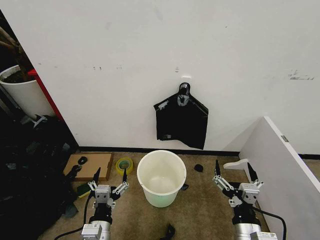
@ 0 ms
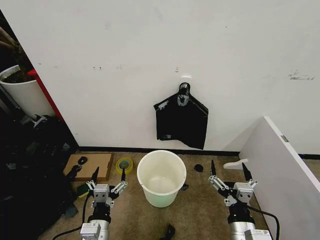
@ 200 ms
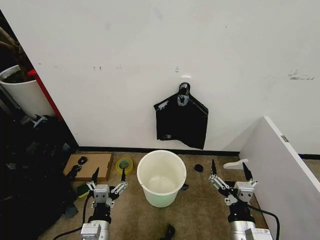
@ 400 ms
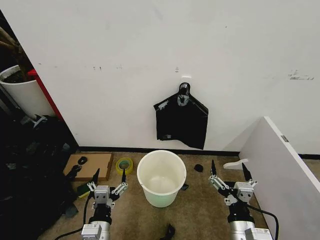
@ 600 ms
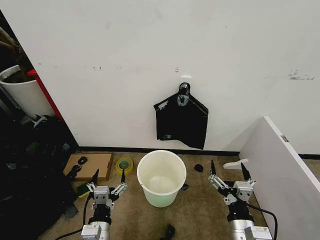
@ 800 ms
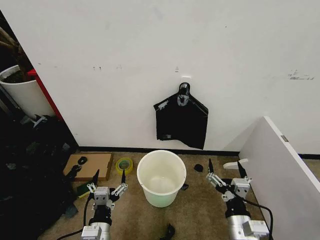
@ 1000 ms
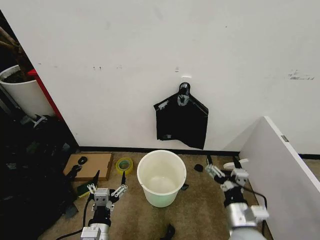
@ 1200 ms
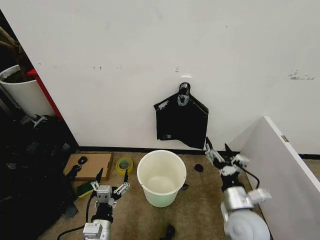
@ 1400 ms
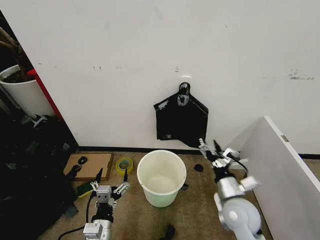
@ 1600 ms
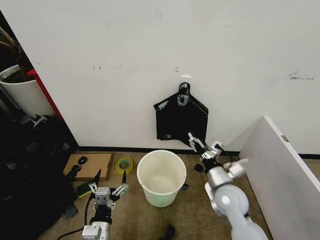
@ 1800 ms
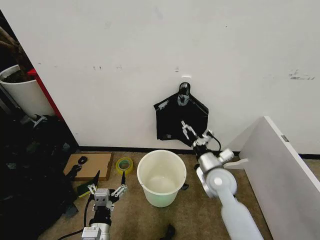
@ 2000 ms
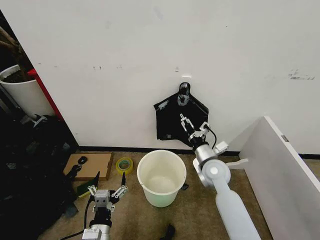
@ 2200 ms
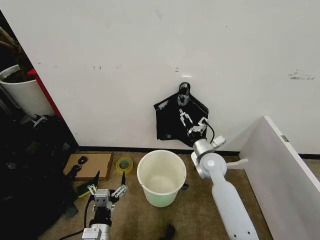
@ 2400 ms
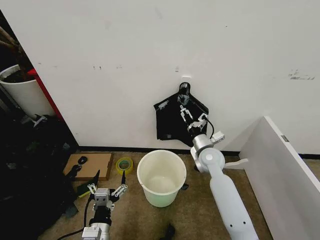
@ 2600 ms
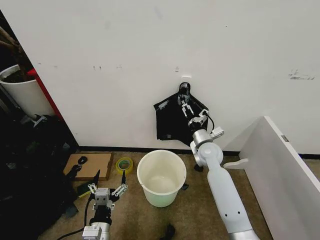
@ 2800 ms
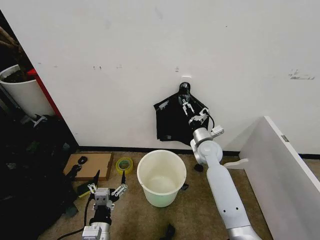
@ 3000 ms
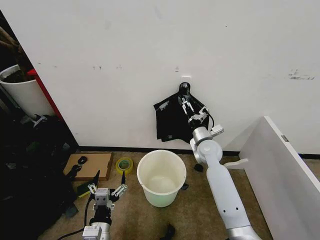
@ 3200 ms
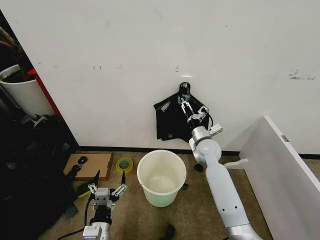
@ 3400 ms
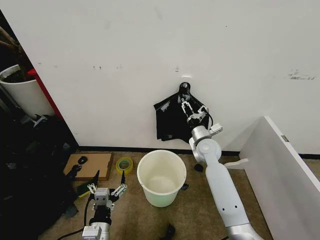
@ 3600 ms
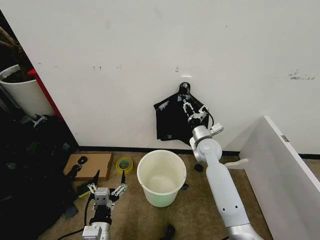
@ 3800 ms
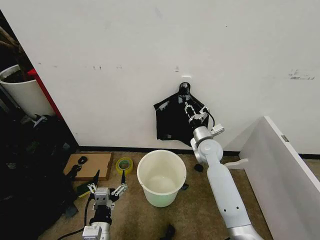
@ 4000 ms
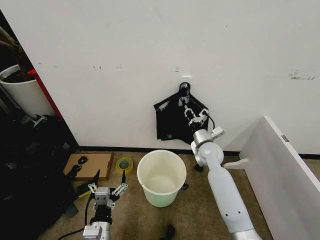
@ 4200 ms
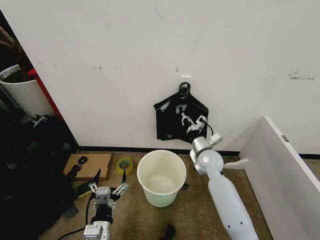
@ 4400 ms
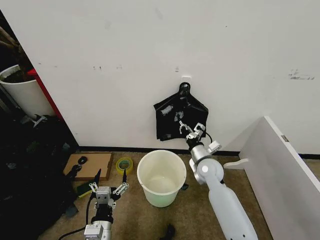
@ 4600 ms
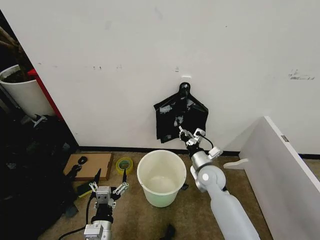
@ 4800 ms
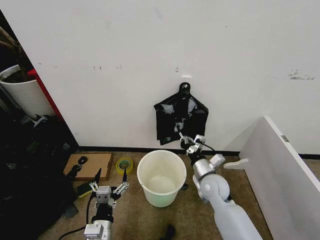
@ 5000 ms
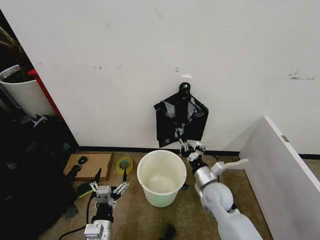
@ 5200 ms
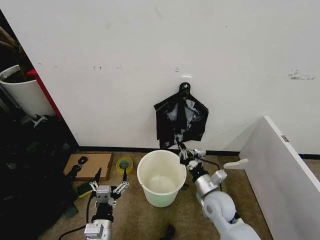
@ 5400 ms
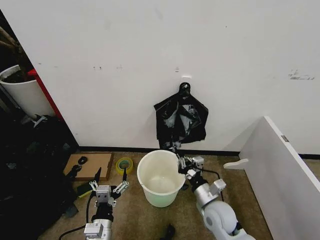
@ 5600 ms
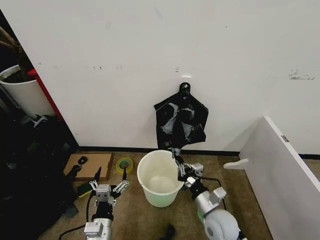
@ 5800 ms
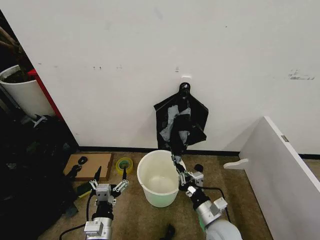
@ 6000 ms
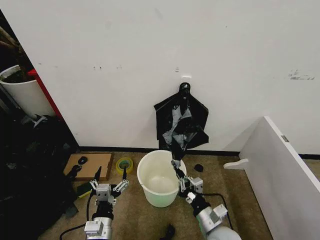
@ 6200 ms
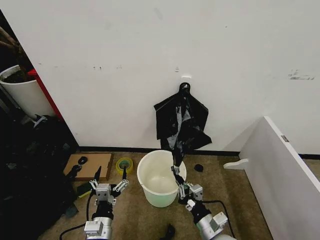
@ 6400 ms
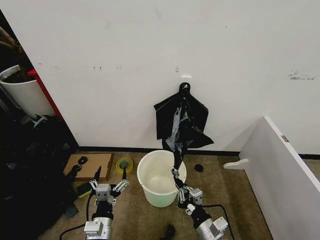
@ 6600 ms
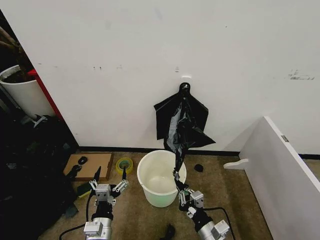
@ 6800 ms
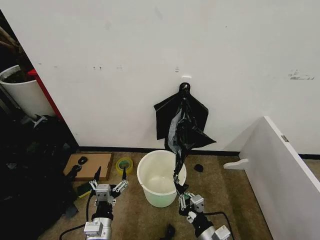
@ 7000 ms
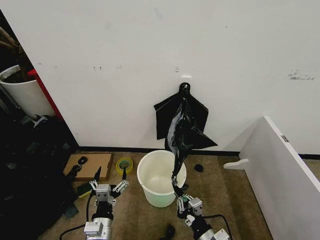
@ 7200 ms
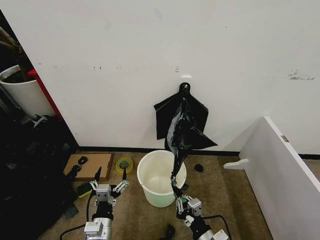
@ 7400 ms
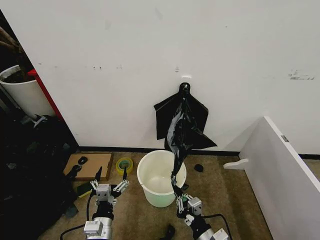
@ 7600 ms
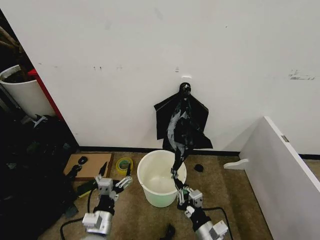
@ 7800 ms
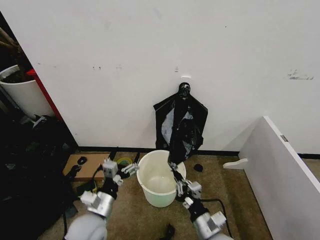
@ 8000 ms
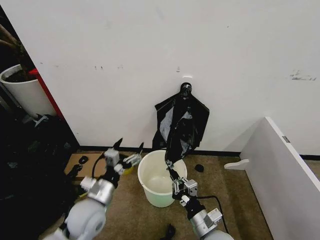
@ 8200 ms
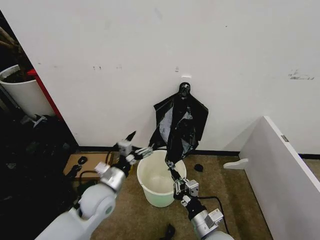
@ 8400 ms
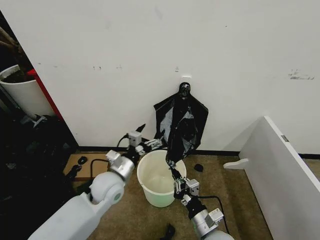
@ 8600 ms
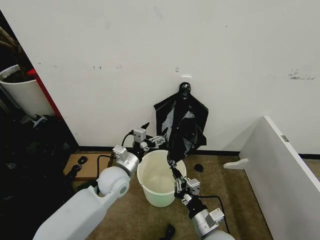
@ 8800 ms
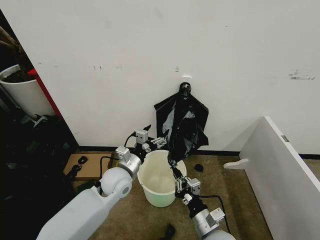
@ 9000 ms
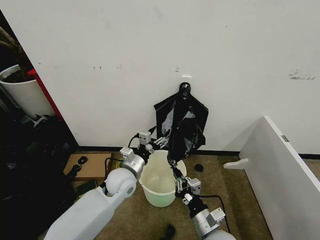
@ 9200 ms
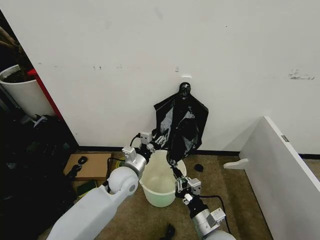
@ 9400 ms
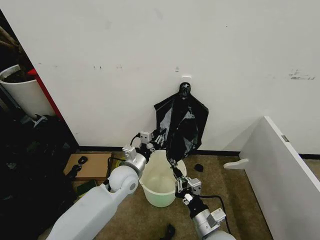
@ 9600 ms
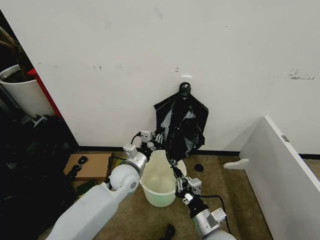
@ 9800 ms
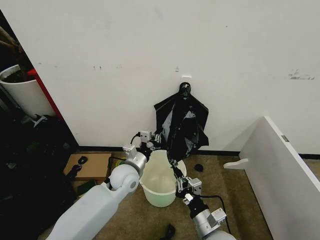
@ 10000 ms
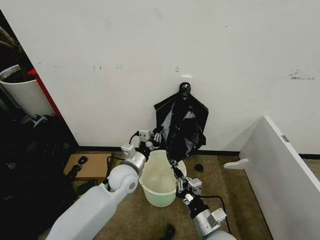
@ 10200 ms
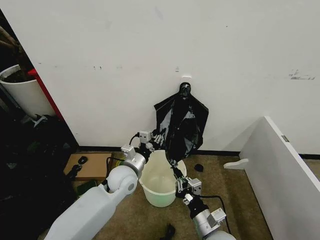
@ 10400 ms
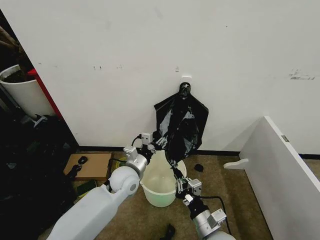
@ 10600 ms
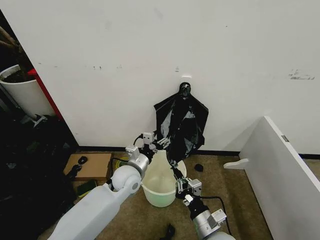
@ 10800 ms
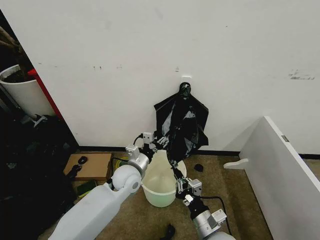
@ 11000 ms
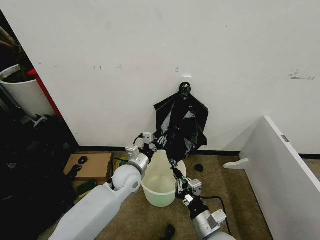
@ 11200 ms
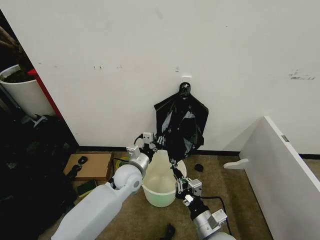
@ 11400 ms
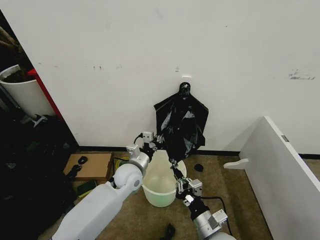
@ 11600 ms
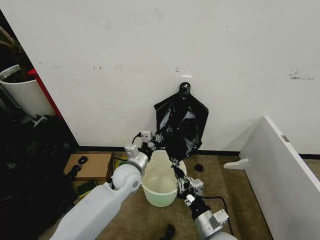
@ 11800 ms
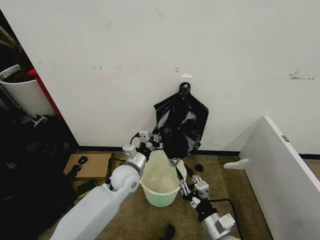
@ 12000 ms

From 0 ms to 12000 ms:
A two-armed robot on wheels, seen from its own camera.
Task of the whole recording: Place the garbage bag over the trash bin.
From 1600 ms to 3000 ms: The right gripper moves forward, some 20 cm.
From 3000 ms to 4400 ms: The right gripper closes.
From 4400 ms to 6000 ms: The right gripper goes roughly 25 cm backward.
From 6000 ms to 7600 ms: The right gripper travels backward by roughly 10 cm.
From 7600 ms to 9000 ms: The right gripper changes place by some 5 cm; the left gripper goes roughly 20 cm forward and upward.
From 9000 ms to 10400 ms: The left gripper closes up.
From 10400 ms to 12000 ms: The left gripper closes.

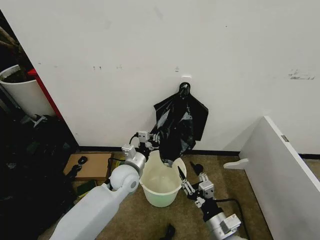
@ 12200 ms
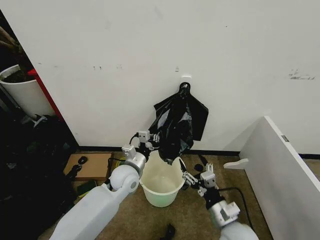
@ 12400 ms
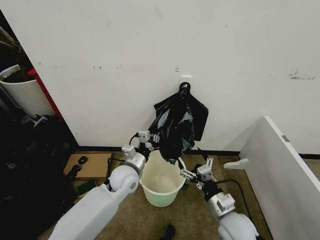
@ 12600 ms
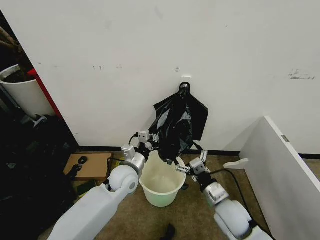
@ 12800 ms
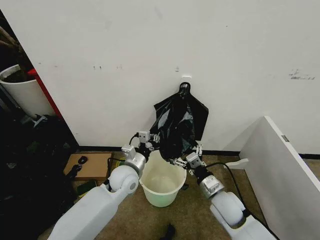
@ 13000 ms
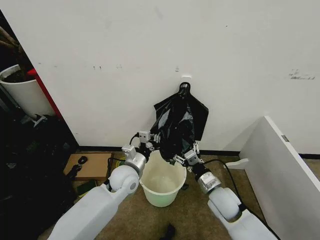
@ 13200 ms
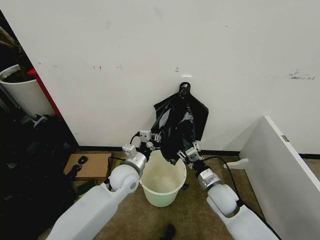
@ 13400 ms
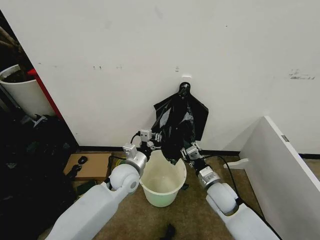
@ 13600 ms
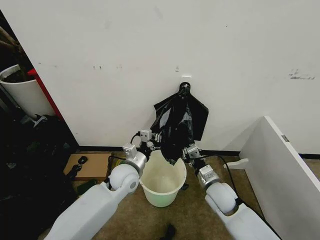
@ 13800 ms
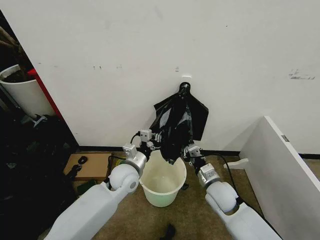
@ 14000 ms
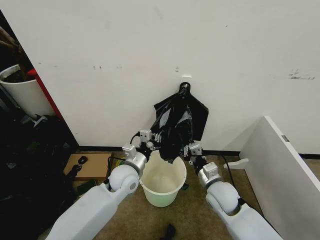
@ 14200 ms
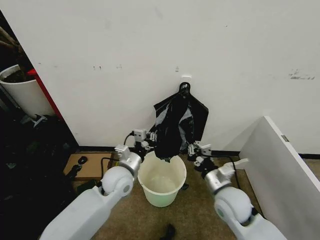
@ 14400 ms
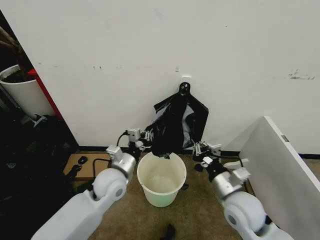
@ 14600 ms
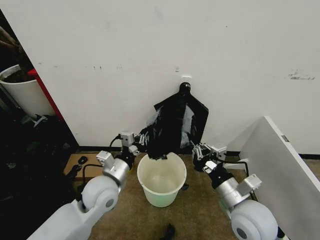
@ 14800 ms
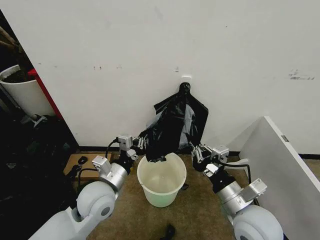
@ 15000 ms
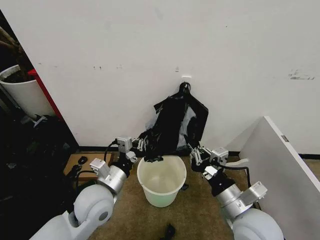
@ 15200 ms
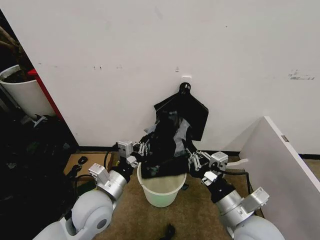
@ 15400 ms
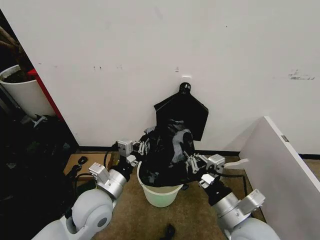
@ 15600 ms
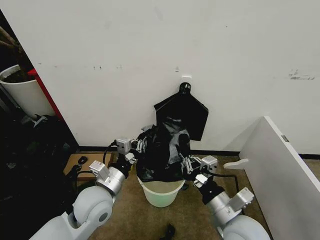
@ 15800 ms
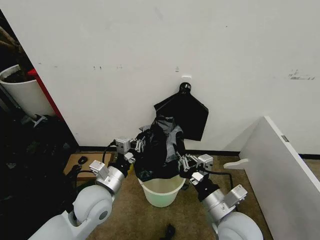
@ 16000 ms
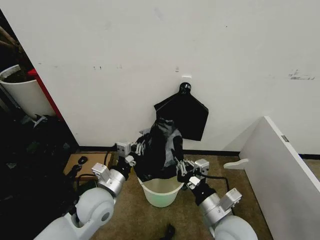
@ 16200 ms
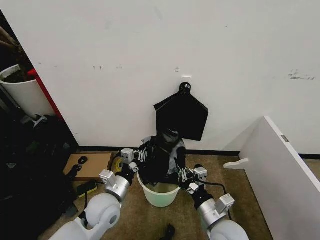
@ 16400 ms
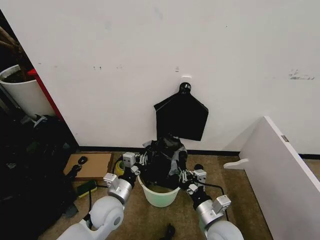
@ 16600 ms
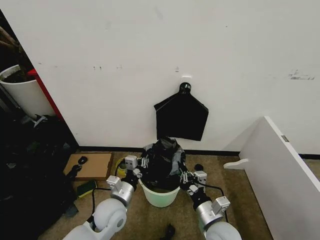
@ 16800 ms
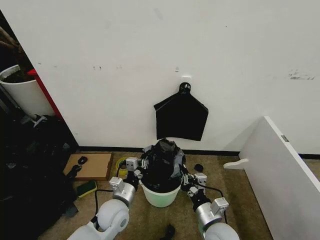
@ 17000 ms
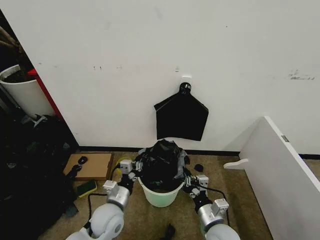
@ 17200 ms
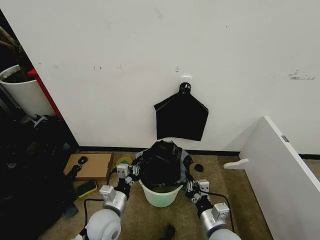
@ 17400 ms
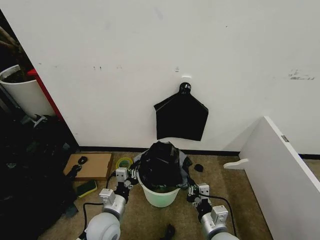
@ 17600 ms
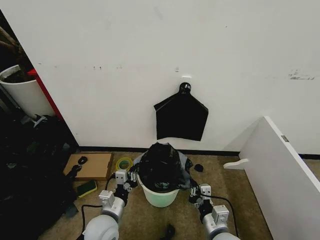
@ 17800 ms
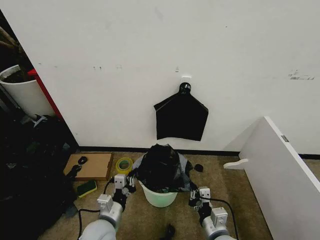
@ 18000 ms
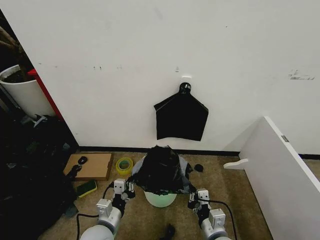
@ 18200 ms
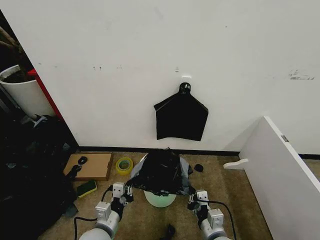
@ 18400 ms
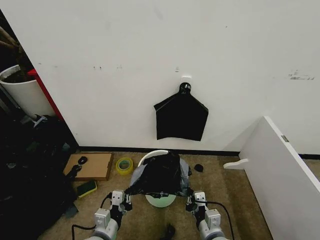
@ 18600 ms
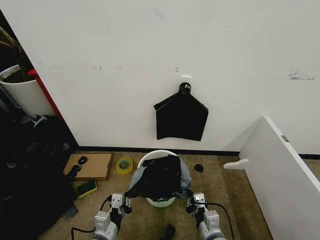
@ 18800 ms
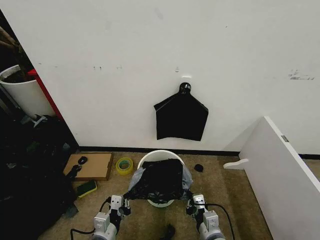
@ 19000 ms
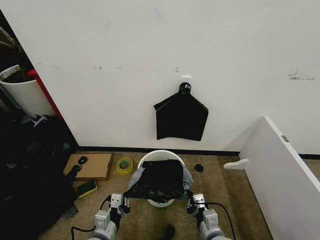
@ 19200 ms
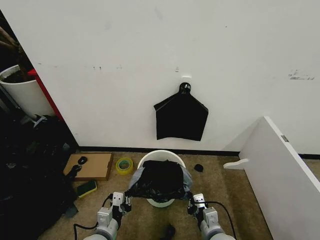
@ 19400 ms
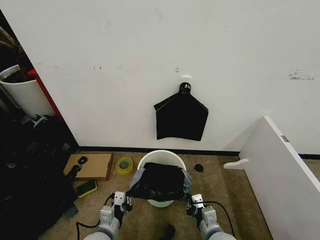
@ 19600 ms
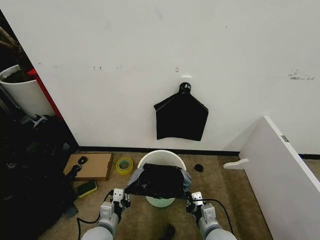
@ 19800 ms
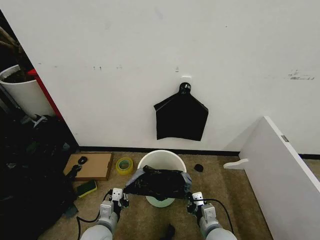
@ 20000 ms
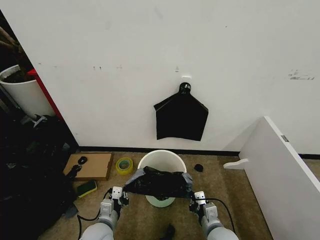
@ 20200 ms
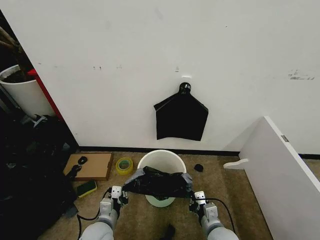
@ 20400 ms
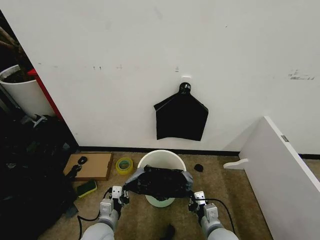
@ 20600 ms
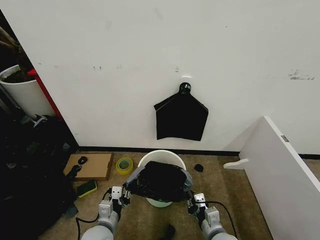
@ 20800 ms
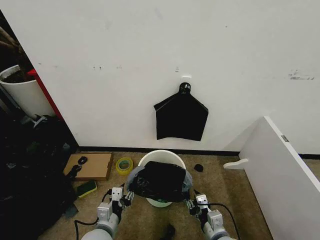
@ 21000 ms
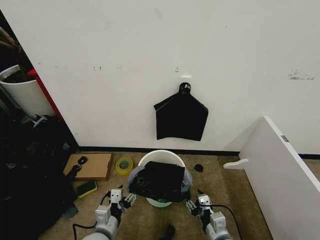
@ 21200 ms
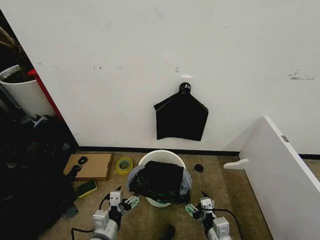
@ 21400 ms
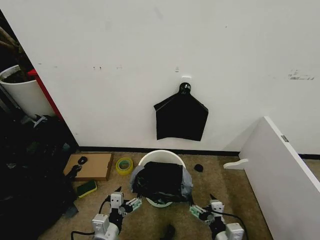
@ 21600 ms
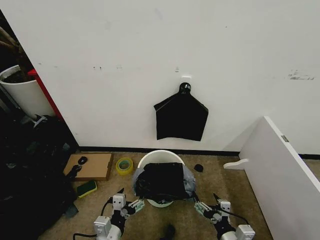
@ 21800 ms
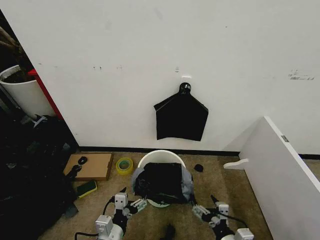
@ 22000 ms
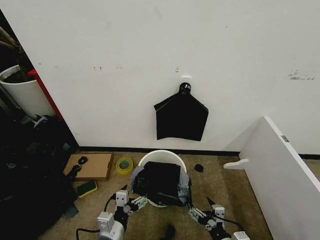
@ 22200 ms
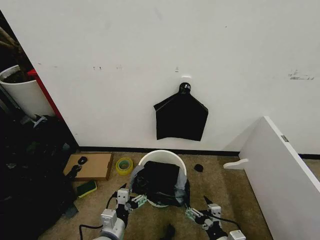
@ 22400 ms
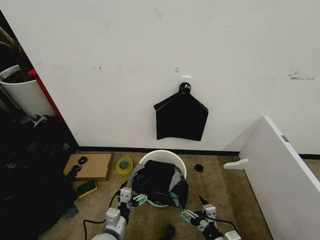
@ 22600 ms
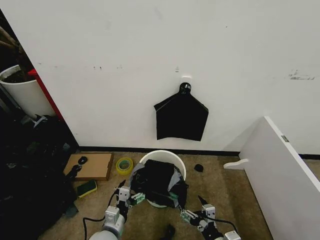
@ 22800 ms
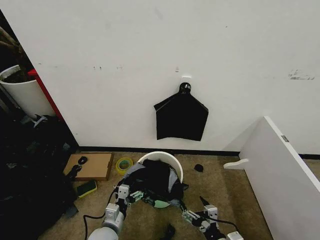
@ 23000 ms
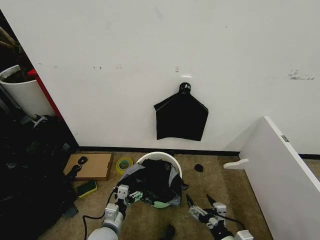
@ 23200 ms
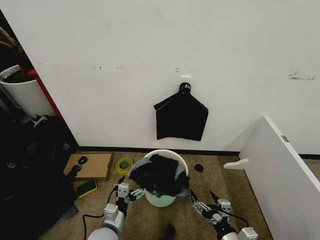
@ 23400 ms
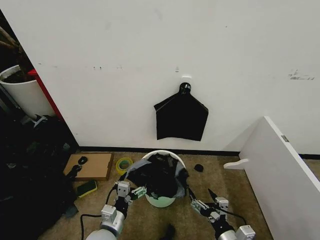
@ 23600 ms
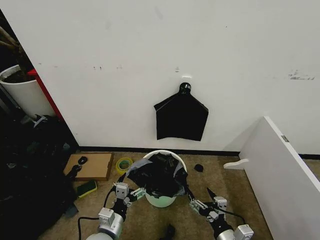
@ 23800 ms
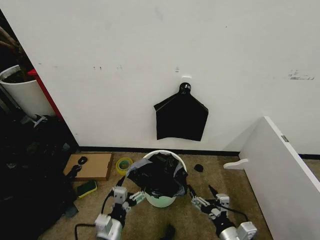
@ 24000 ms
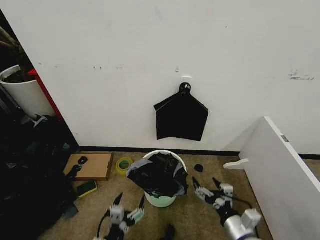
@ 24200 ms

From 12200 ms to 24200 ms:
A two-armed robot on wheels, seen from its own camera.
Task of the whole recording: Place the garbage bag over the trash bin.
From 12200 ms to 13800 ms: The right gripper moves forward, some 15 cm, and closes.
From 13800 ms to 15200 ms: The right gripper goes approximately 20 cm upward and backward; the left gripper goes approximately 15 cm backward, upward and to the left.
From 15200 ms to 16600 ms: The two grippers go approximately 10 cm downward.
From 16600 ms to 18200 ms: The left gripper is displaced backward by approximately 10 cm.
From 18200 ms to 19800 ms: The grippers move only a little.
From 19800 ms to 21200 ms: The right gripper opens its fingers, while the left gripper opens.
From 21200 ms to 22600 ms: The right gripper opens up.
From 22600 ms to 24200 ms: The left gripper travels backward by some 10 cm. The right gripper goes about 5 cm upward.
